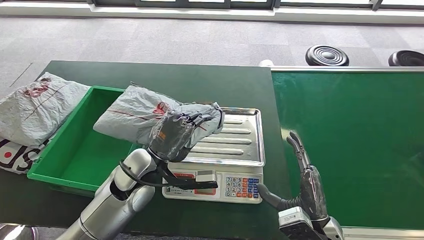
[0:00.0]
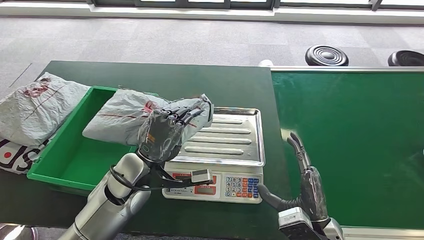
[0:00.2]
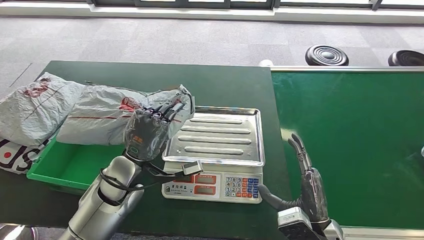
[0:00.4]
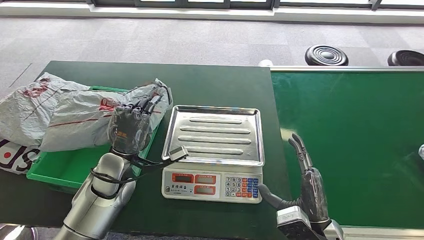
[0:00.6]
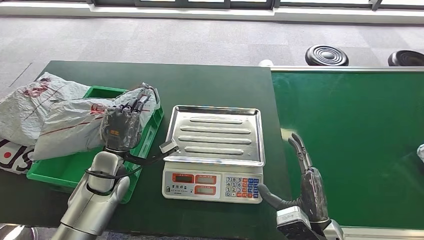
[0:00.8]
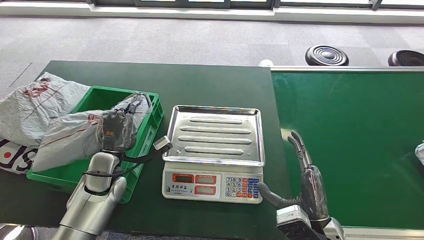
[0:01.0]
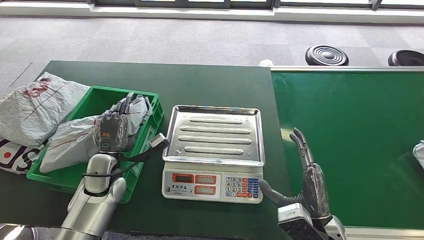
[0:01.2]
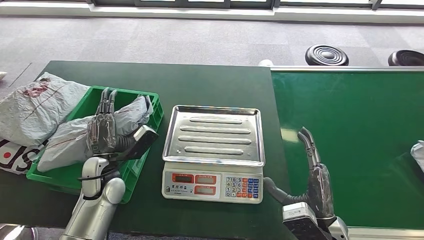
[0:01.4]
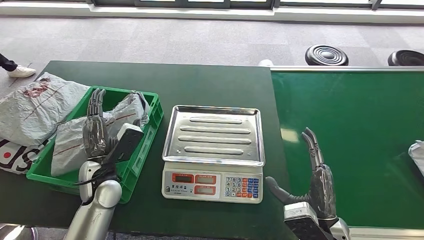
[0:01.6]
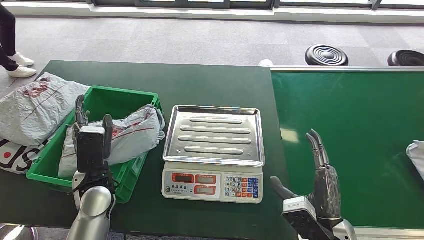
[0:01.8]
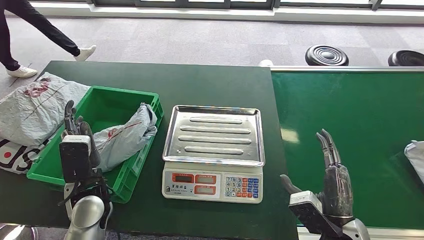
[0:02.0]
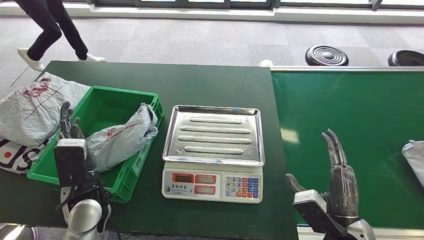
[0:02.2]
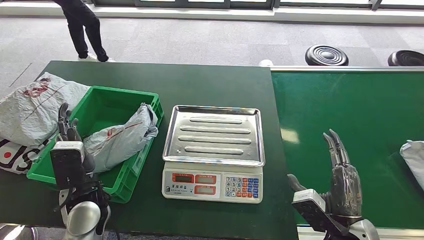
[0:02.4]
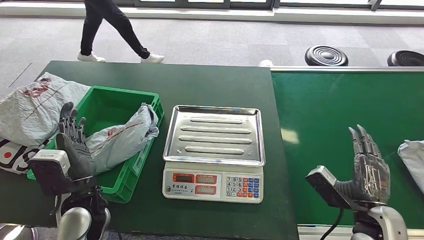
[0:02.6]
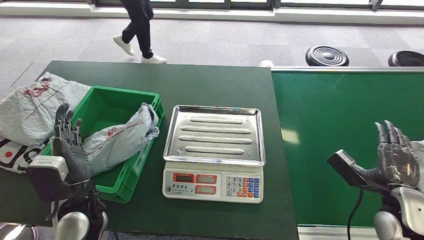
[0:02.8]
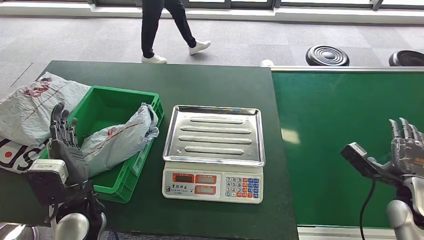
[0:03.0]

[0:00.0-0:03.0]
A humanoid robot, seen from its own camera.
Step, 0:00.6 to 0:03.0: Put the parcel inside the courier box.
0:00.0 to 0:01.6: The left hand heads to the left and downward, covering about 10 cm.
